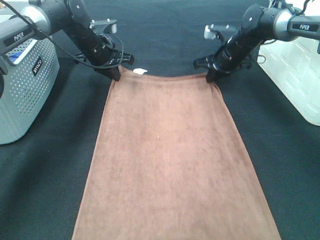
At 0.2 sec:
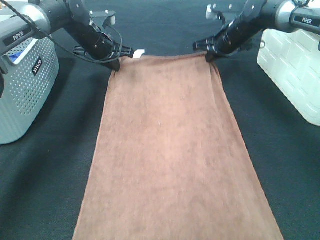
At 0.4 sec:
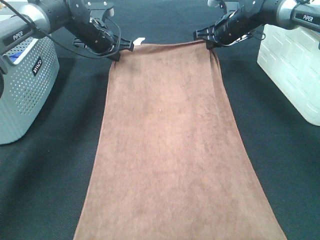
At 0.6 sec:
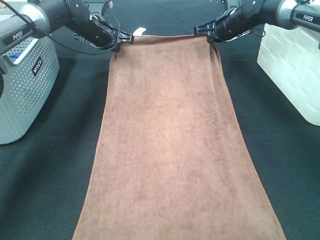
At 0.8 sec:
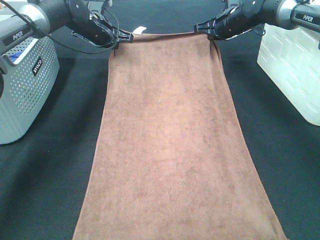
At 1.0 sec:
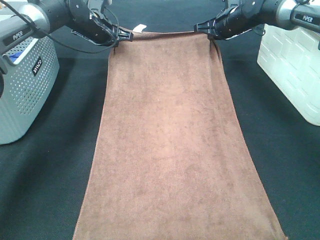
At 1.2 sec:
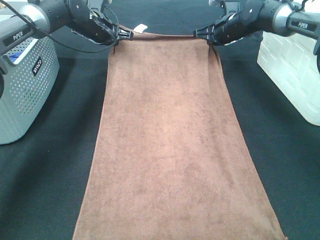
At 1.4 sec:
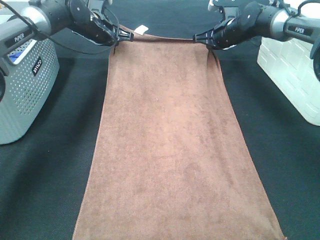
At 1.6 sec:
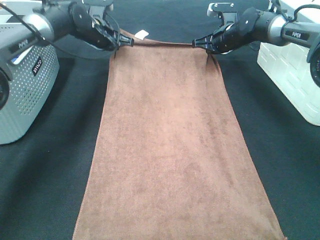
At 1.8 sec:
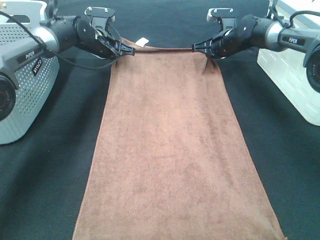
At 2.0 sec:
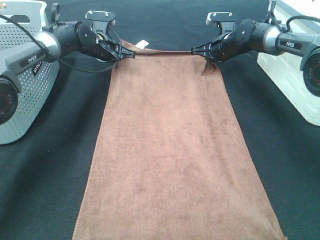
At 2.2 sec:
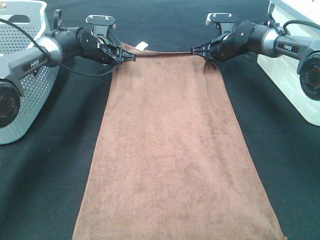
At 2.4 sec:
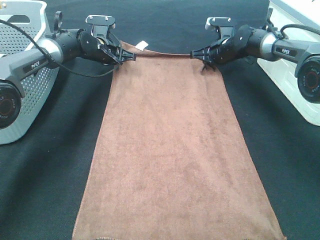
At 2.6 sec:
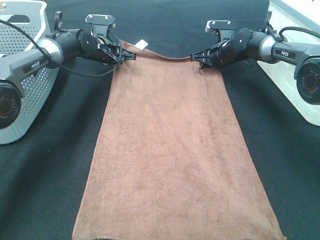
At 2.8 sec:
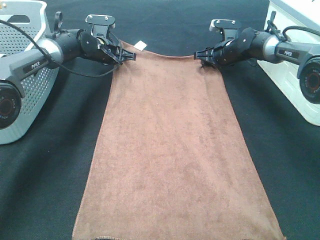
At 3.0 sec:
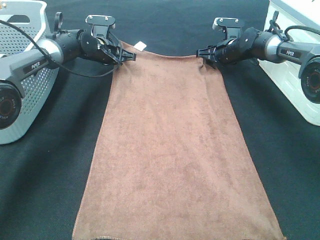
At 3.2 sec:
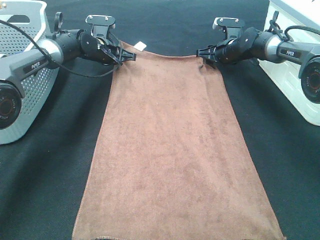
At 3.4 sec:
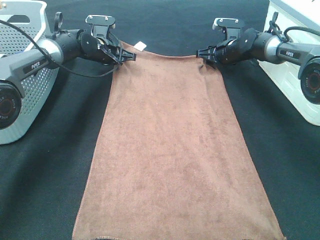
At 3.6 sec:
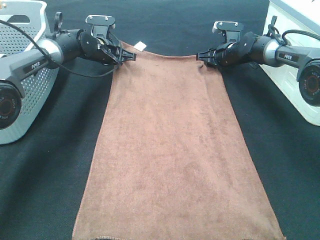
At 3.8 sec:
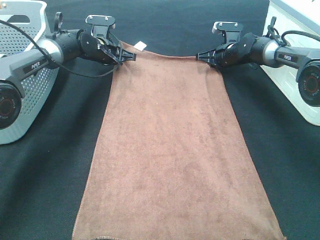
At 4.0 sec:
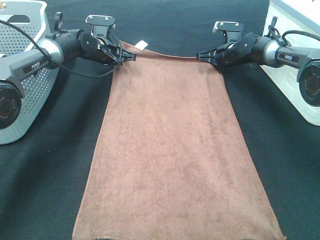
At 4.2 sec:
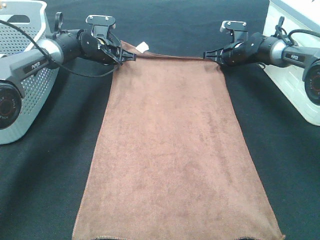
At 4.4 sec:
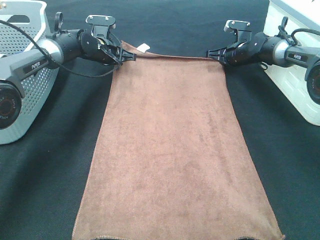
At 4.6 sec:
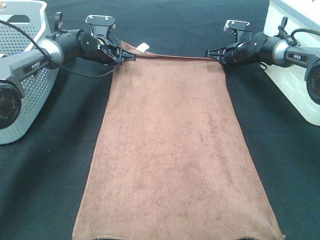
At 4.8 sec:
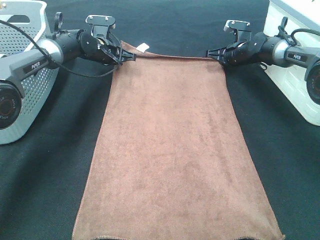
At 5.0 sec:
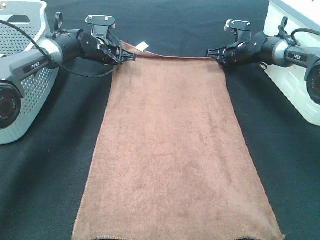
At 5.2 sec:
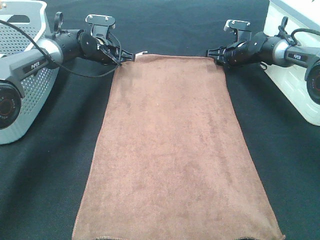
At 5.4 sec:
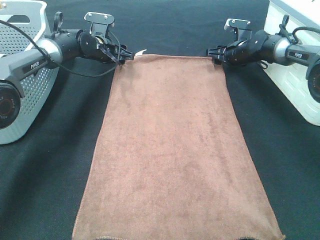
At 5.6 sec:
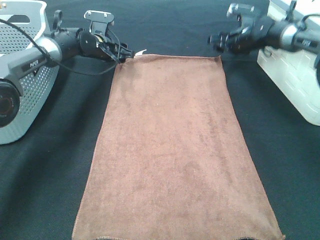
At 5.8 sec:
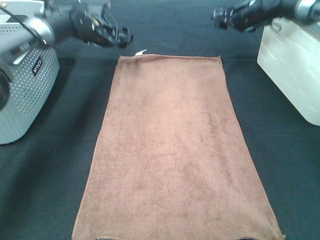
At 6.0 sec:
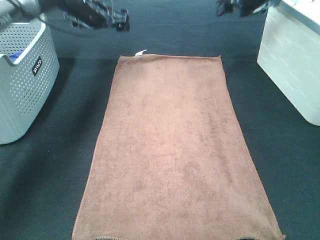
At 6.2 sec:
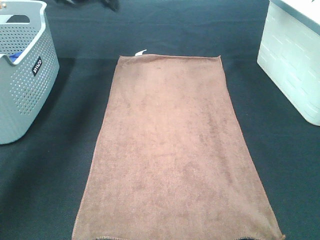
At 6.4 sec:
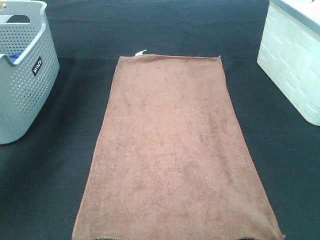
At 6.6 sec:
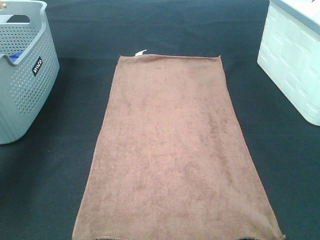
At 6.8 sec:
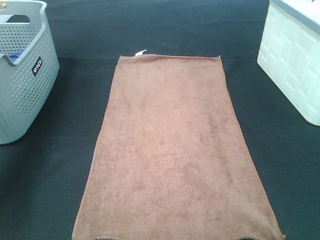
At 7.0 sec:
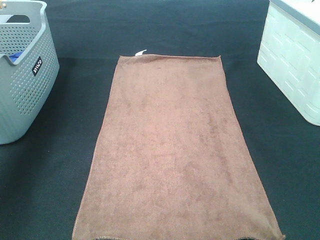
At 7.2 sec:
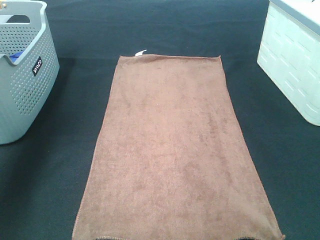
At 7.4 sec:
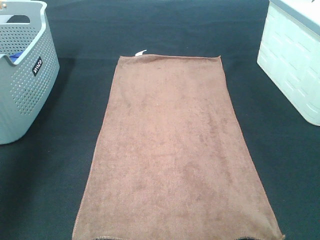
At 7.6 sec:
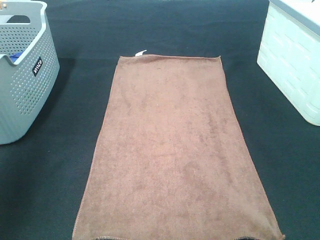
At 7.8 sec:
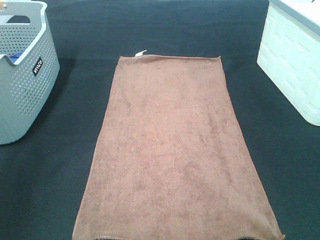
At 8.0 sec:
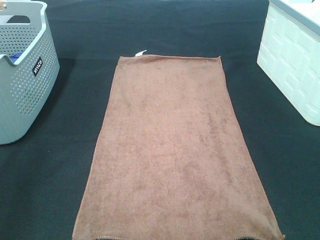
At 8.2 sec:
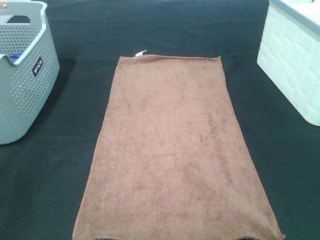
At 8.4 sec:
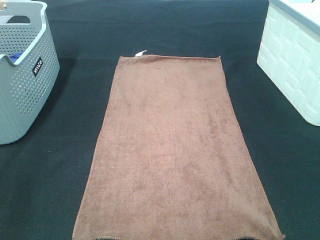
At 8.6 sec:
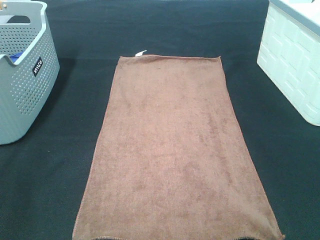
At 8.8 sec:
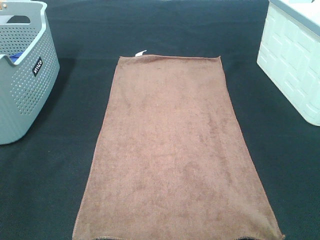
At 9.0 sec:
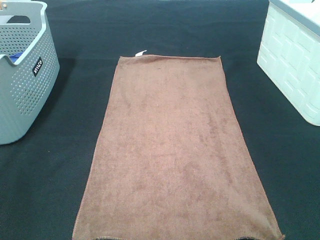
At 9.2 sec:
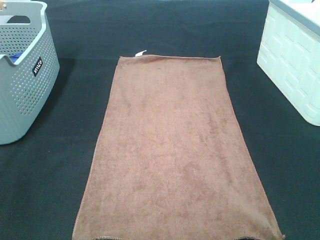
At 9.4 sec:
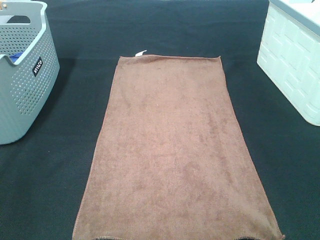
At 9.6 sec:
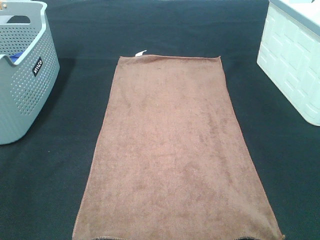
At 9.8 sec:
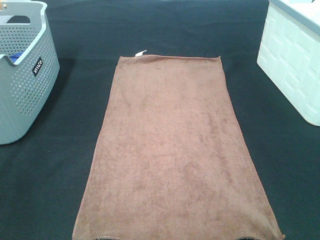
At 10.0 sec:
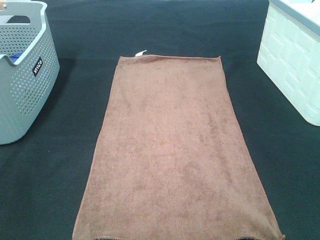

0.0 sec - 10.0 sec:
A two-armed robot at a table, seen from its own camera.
Task of the whole recording: Remove the towel and place it.
1.4 sec - 2.8 sec: Both grippers travel together downward, roughly 5 cm. The right gripper opens up.
2.8 sec - 4.2 sec: The right gripper closes up.
4.2 sec - 5.8 sec: The left gripper moves upward, approximately 5 cm, and opens up. Meanwhile the right gripper shifts roughly 15 cm upward, and opens its fingers.
5.8 sec - 7.2 sec: The left gripper moves backward, upward and to the left, approximately 40 cm, while the right gripper travels backward and upward by about 40 cm.
7.2 sec - 8.6 sec: The left gripper moves backward, approximately 35 cm.

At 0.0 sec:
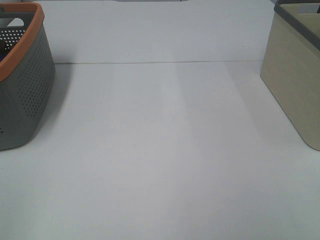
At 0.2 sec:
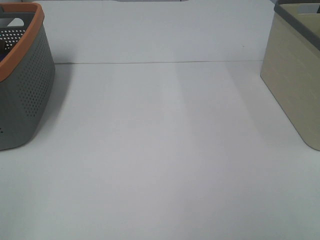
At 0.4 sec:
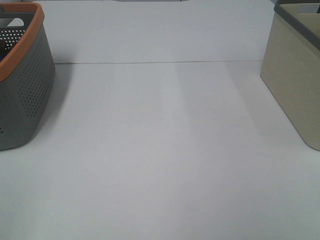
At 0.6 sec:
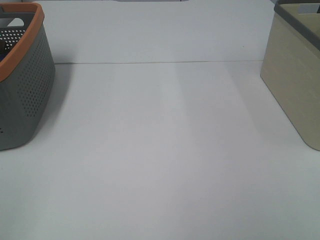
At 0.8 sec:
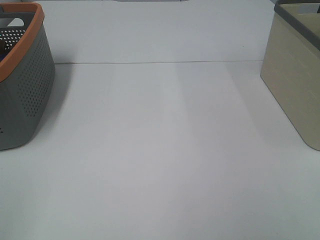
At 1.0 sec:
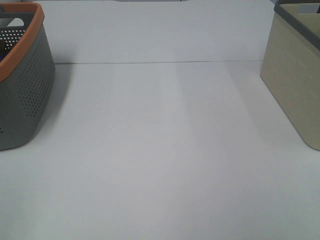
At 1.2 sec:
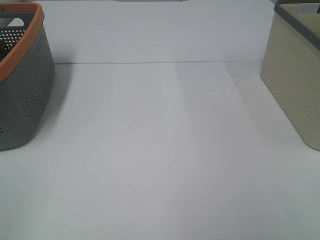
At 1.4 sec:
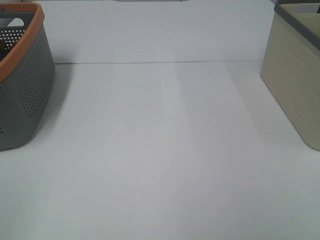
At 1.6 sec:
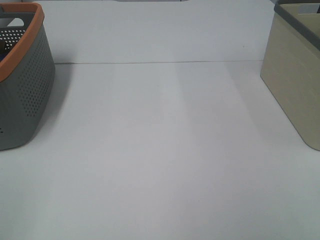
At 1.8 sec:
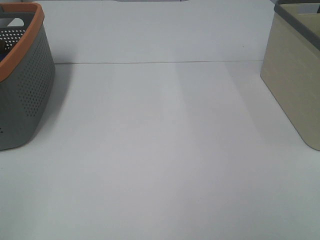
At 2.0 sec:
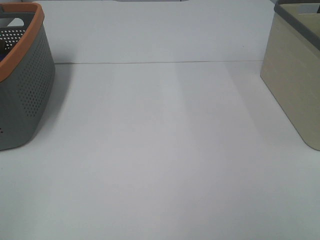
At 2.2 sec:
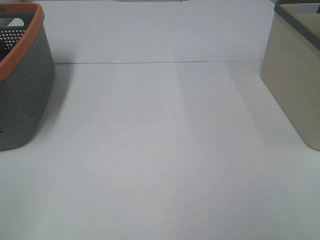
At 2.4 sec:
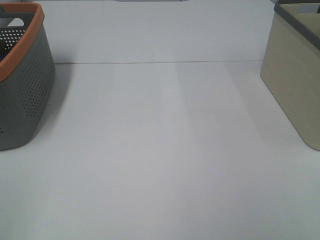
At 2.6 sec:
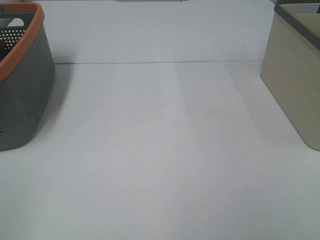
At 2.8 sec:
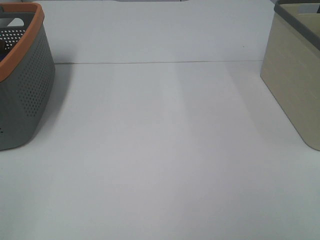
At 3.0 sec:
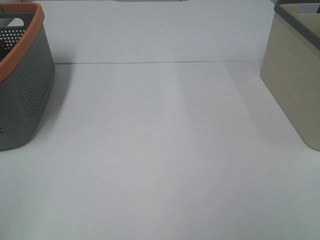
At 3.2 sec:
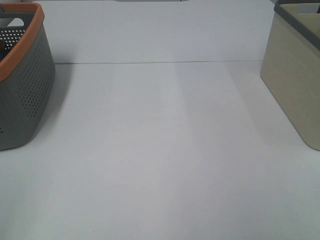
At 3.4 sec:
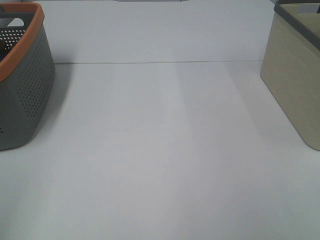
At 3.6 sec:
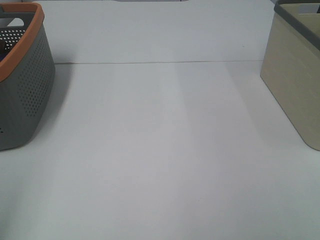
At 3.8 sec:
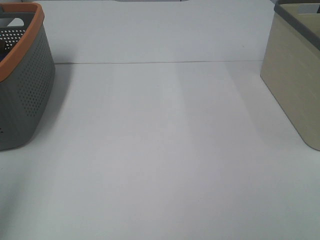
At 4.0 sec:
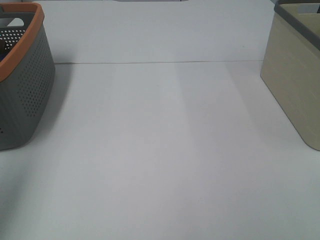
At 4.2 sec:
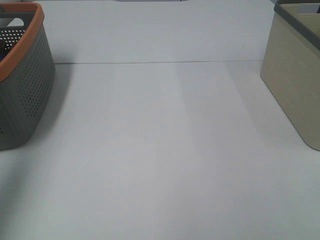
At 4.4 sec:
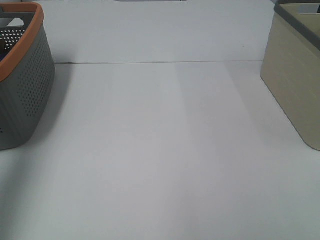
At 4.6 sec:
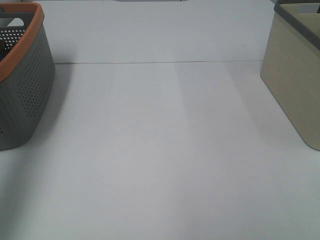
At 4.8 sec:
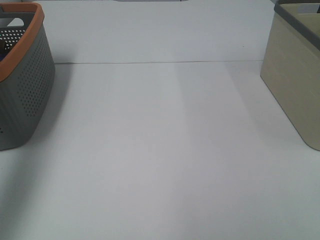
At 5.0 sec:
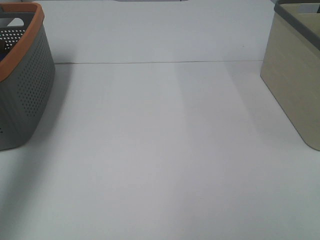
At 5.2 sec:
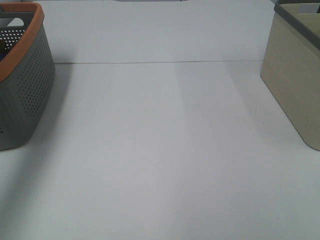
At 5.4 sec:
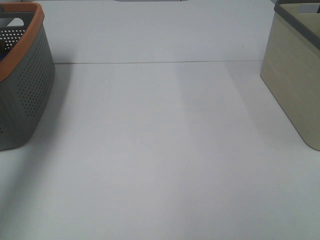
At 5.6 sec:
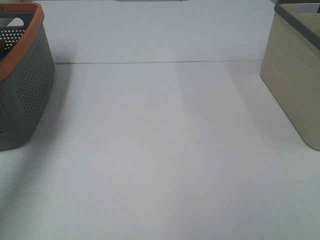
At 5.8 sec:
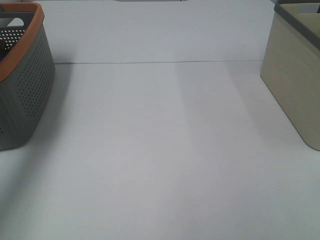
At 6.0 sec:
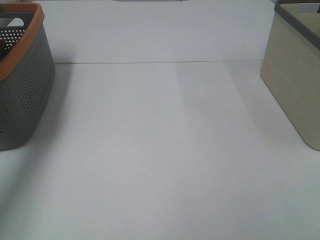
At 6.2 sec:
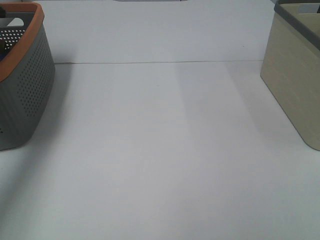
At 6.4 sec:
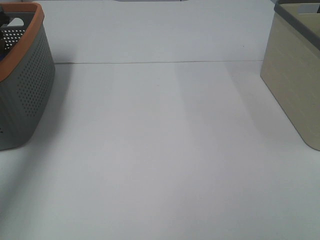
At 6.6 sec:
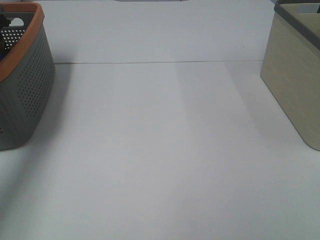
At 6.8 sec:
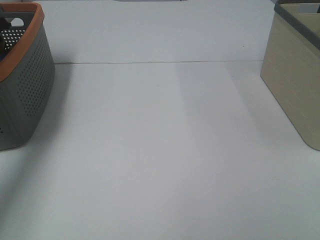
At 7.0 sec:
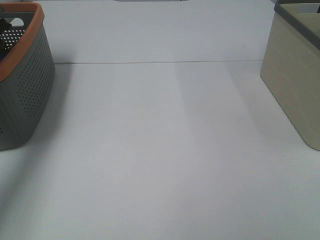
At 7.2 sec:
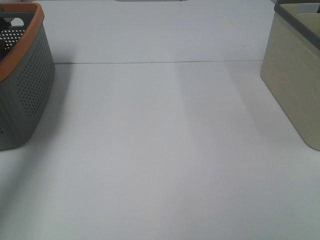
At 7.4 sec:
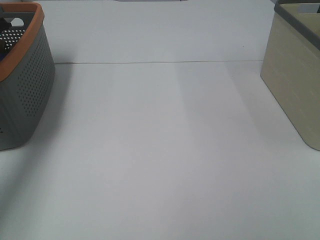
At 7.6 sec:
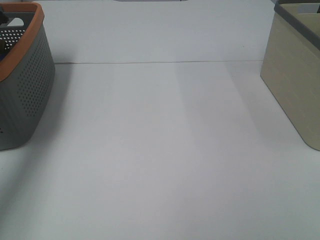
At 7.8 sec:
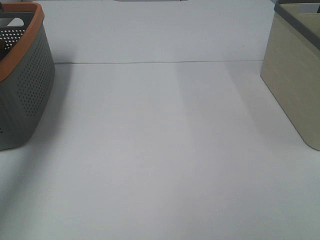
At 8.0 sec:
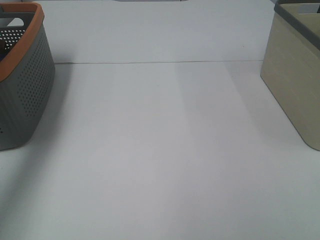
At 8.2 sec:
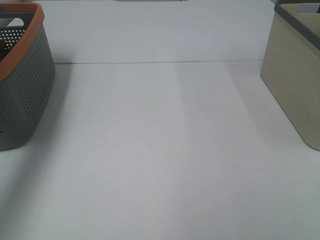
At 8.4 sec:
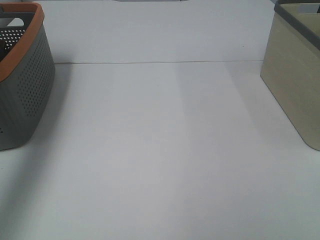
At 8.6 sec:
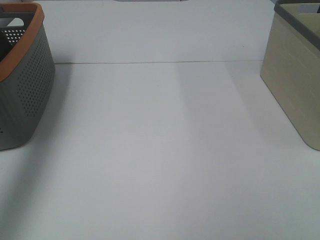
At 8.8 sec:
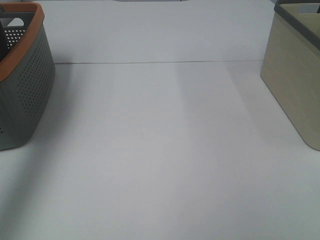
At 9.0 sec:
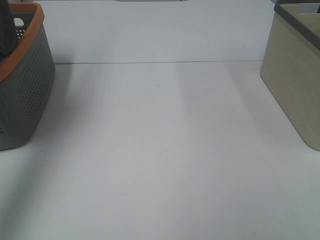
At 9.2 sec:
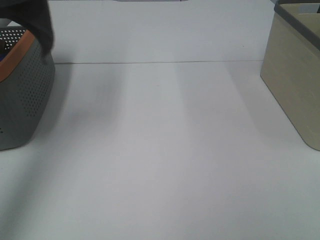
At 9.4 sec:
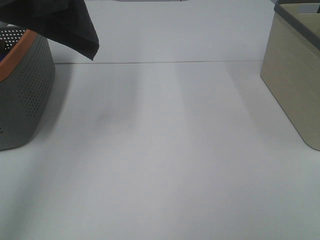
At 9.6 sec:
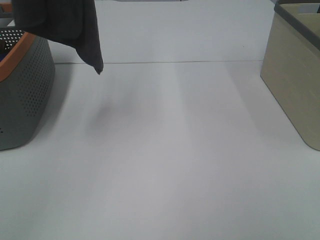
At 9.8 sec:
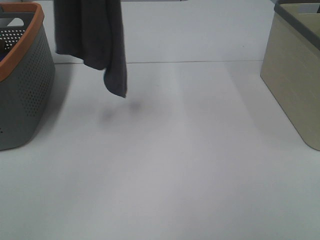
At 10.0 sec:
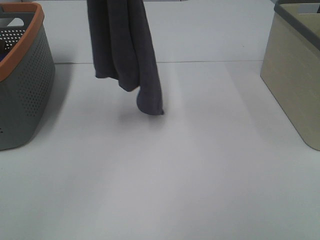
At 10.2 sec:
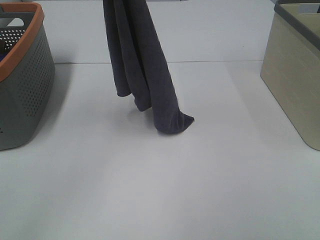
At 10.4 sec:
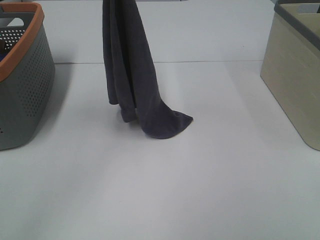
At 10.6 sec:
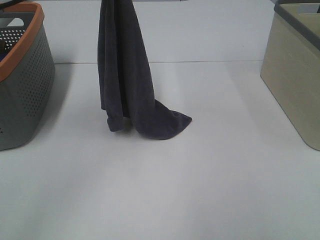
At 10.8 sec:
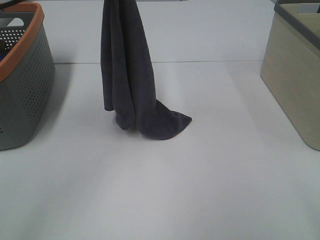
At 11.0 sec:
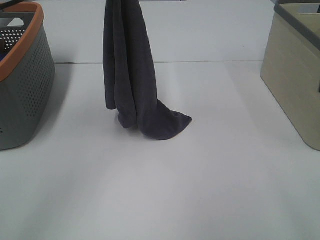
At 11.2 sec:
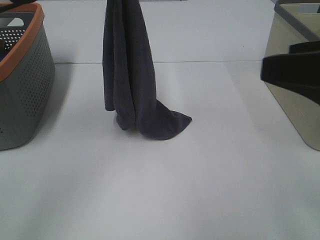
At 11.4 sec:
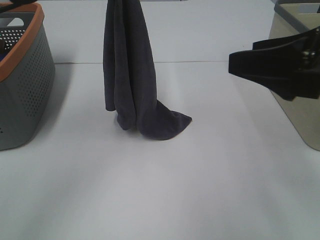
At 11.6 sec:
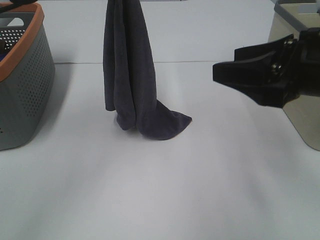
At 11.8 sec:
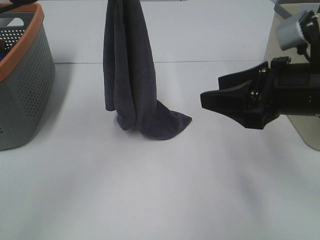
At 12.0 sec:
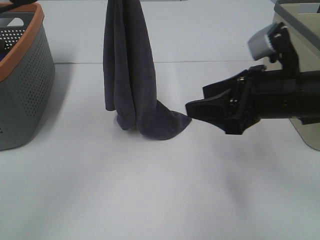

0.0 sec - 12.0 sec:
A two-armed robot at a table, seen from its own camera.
Task of the whole recording: Remove the towel and place it.
0.0 sec - 3.0 sec: Both grippers stay about where they are.
3.0 sec - 4.4 sec: The left gripper shifts roughly 25 cm forward and upward.
4.4 sec - 6.0 sec: The left gripper heads forward and downward, covering roughly 25 cm.
7.6 sec - 9.0 sec: The left gripper shifts approximately 35 cm upward and backward.
9.0 sec - 10.4 sec: The left gripper is displaced downward and to the right by approximately 20 cm.
10.4 sec - 12.0 sec: The right gripper travels forward and to the left by roughly 25 cm.
